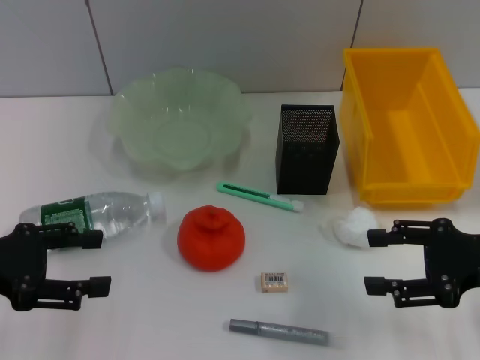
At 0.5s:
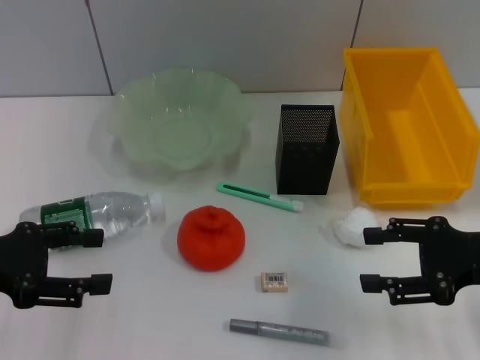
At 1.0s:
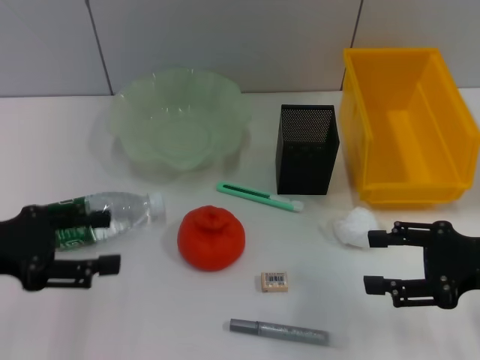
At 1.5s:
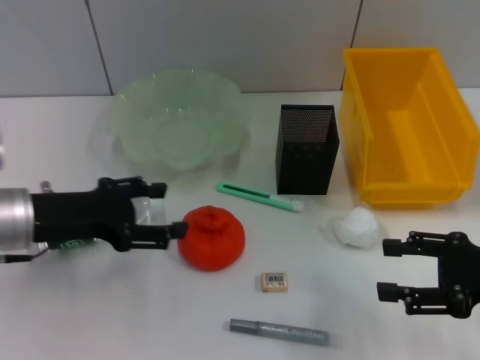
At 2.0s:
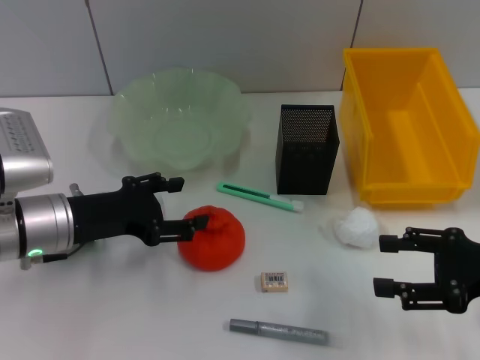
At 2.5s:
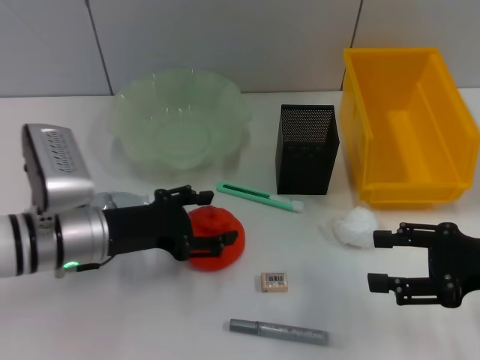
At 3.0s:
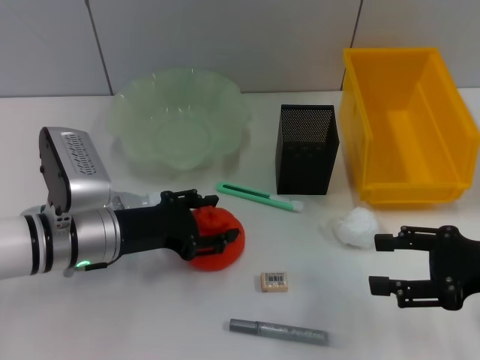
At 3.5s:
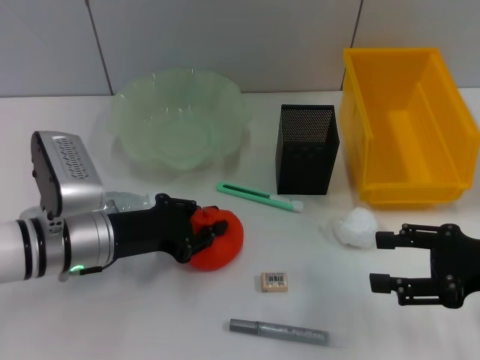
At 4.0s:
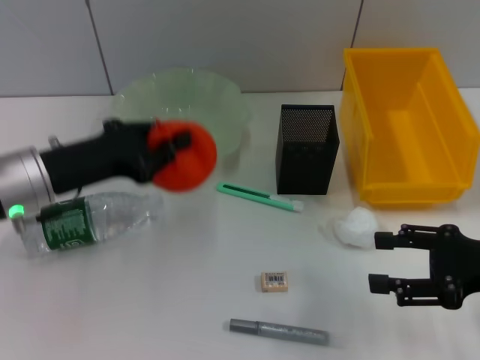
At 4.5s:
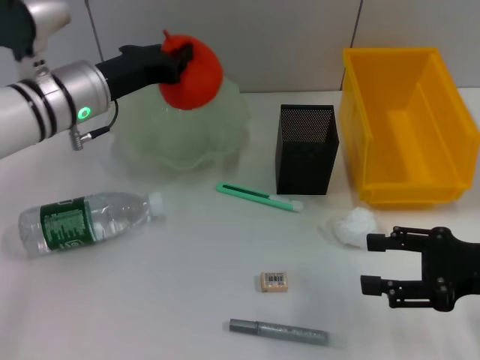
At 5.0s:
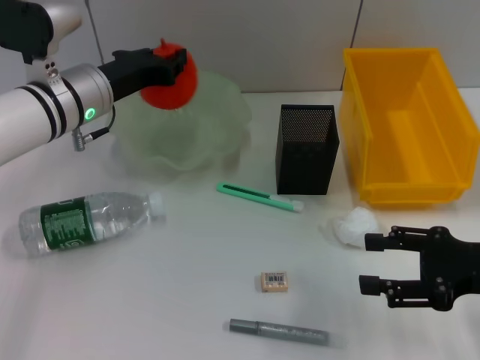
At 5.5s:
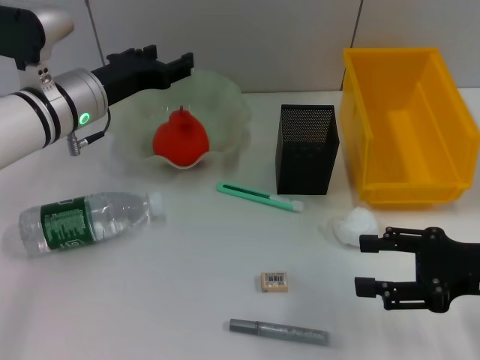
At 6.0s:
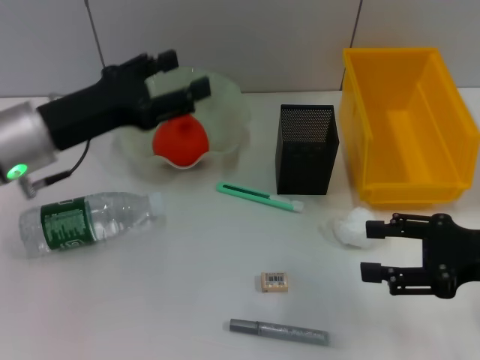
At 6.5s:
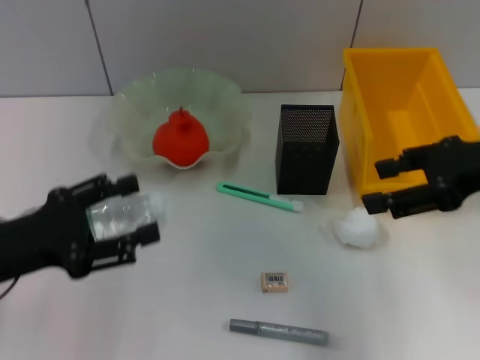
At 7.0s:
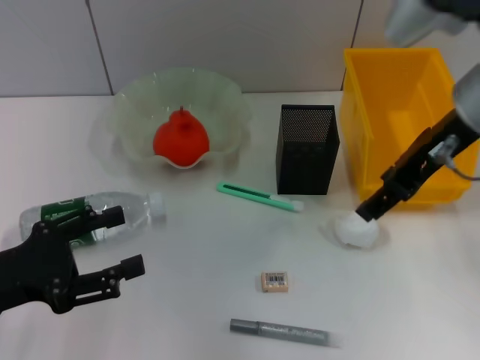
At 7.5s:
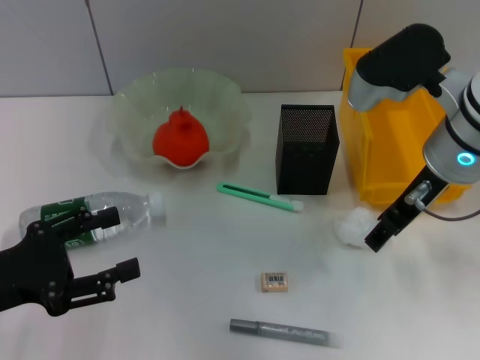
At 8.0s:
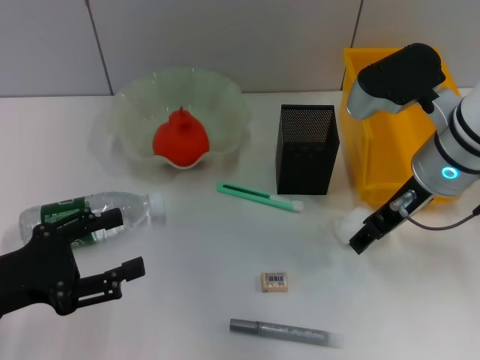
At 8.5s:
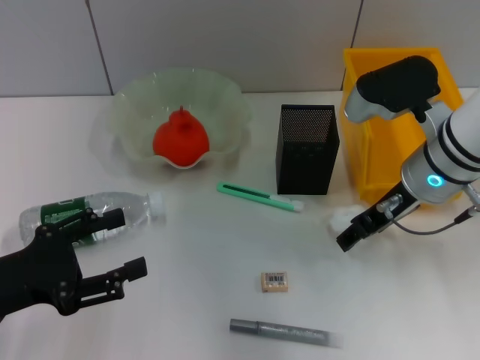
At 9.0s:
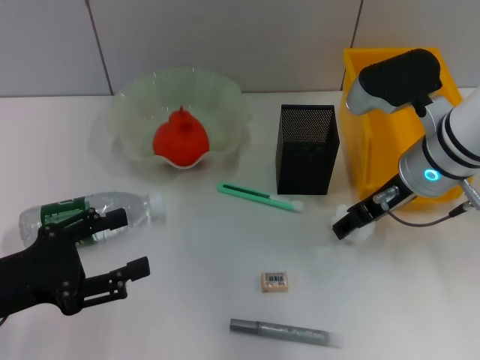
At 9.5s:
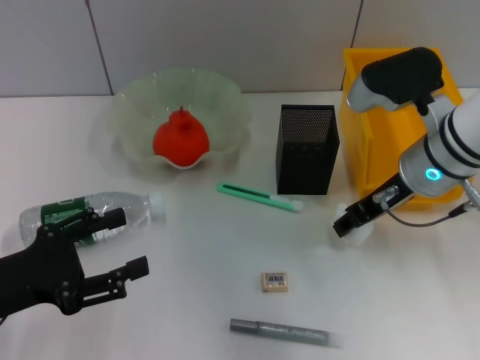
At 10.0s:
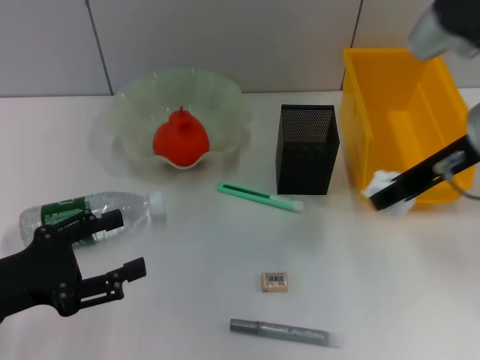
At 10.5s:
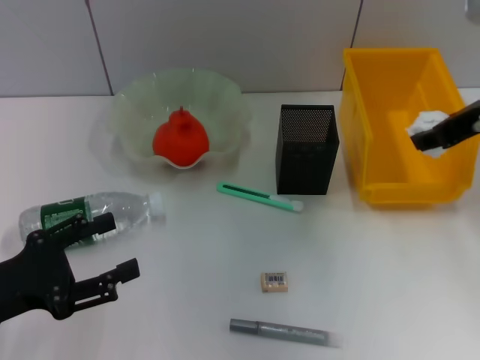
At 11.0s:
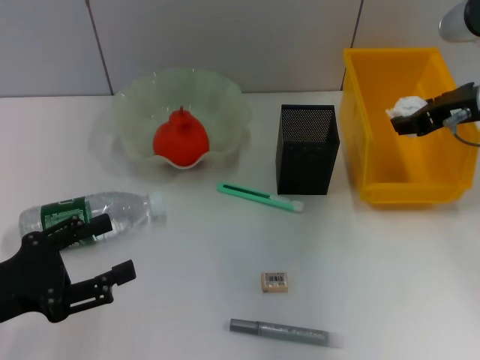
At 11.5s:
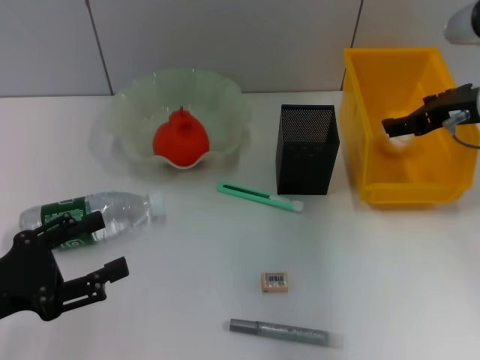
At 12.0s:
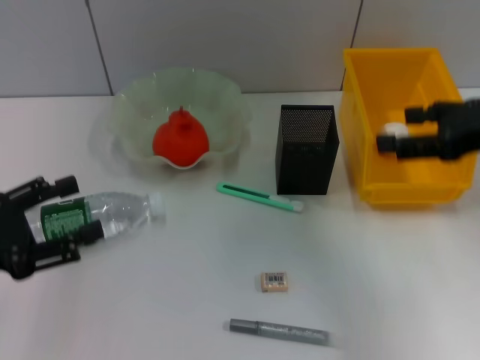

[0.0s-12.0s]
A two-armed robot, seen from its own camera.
Step, 0.0s to 3.5s: Grab the orange with the left hand.
Step, 4.0s to 5.5s: Place the orange into the fruit bowl with the left hand.
Step, 6.0s to 9.5s: Grab the paper ball with the right hand.
Step, 10.0s to 11.0s: Place the paper ball into the trash can with the right hand.
0.0s to 2.0s: The left gripper moves to the right and forward, about 10 cm.
2.0s to 4.0s: The left gripper closes its fingers.
4.0s to 6.0s: The left gripper travels forward and back again, some 10 cm each way, and opens its fingers.
6.0s to 8.0s: The left gripper shifts roughly 15 cm backward, to the left and downward. Meanwhile the right gripper is displaced to the left, forward and upward by approximately 15 cm.
8.0s to 10.0s: The right gripper is displaced upward by roughly 5 cm.
10.0s to 12.0s: The right gripper goes about 10 cm to the right, and opens.

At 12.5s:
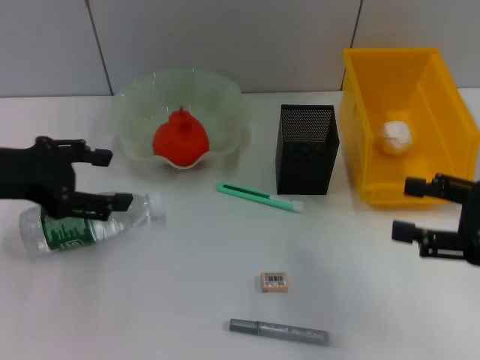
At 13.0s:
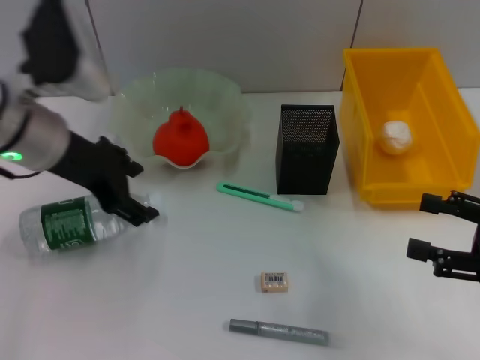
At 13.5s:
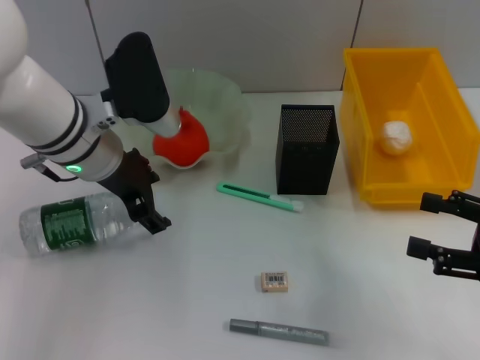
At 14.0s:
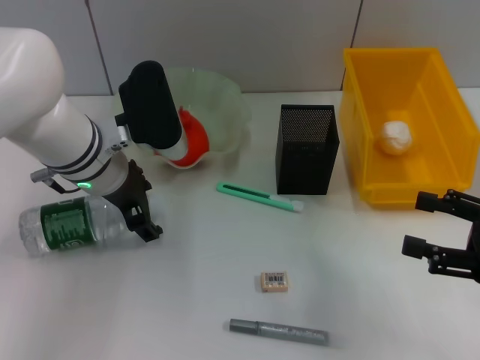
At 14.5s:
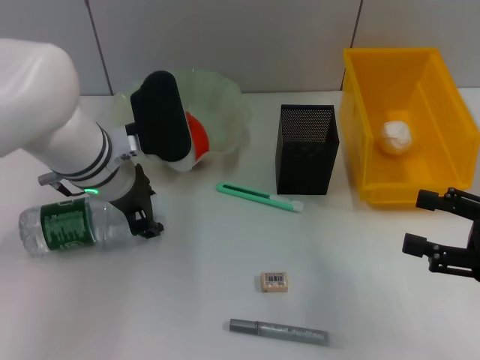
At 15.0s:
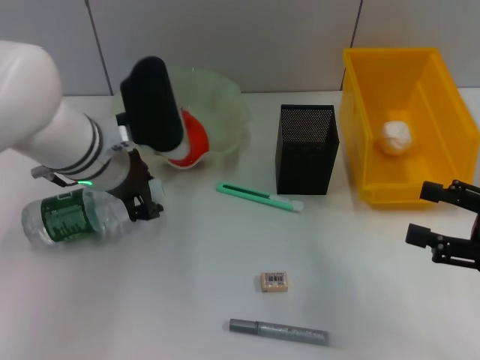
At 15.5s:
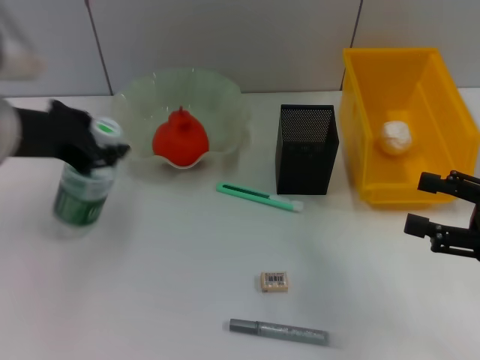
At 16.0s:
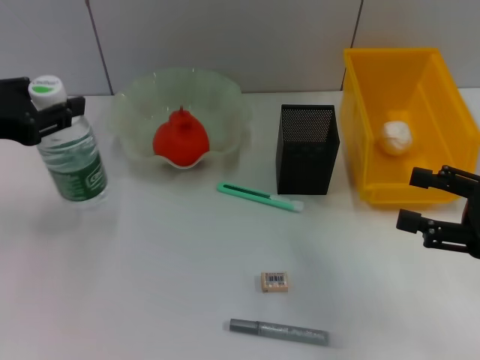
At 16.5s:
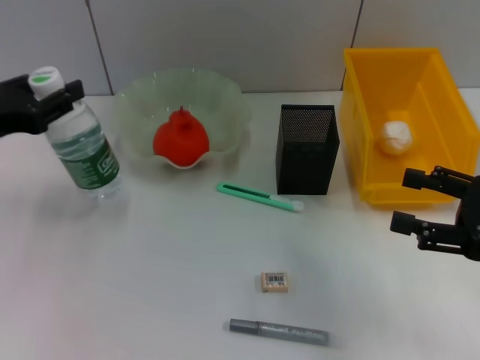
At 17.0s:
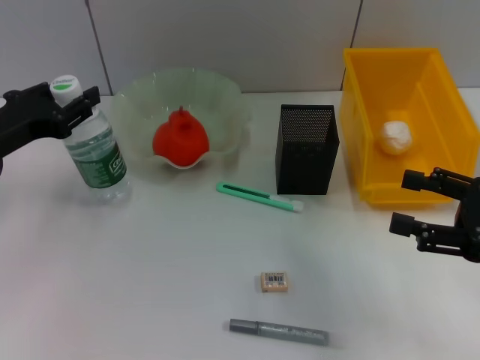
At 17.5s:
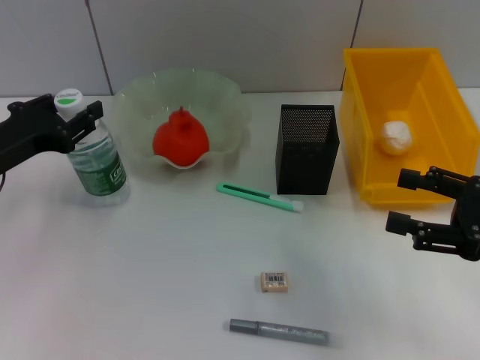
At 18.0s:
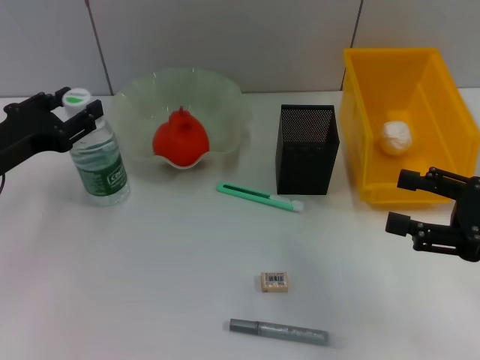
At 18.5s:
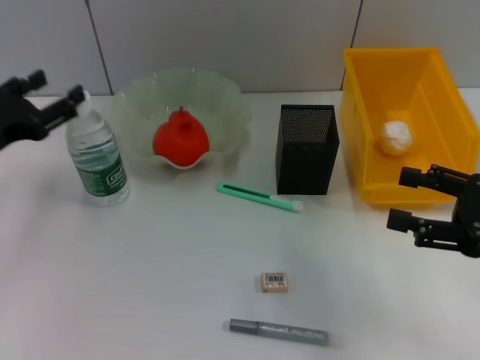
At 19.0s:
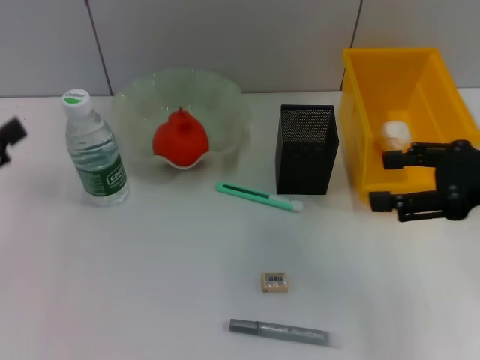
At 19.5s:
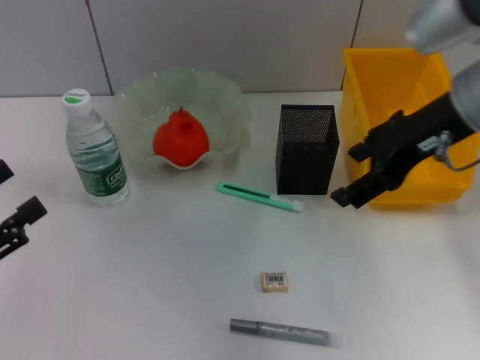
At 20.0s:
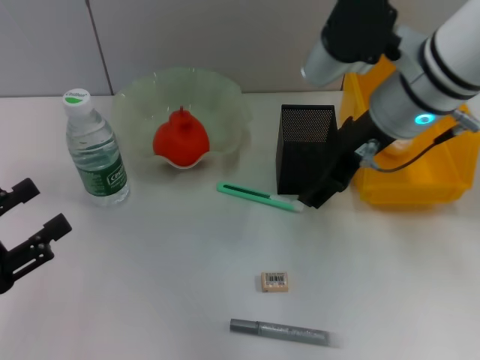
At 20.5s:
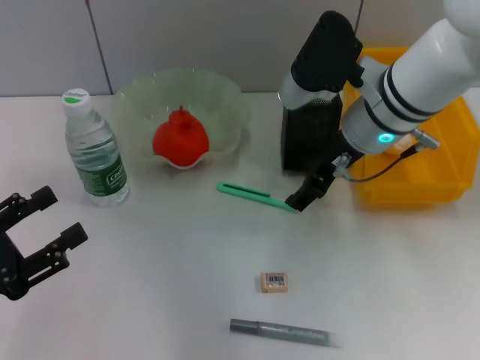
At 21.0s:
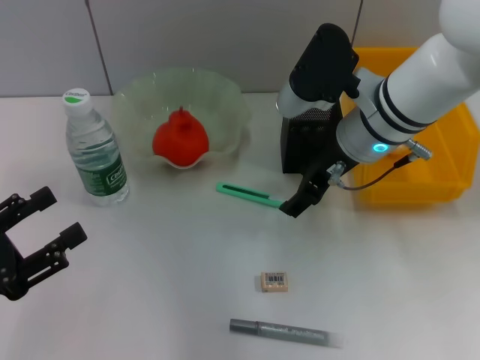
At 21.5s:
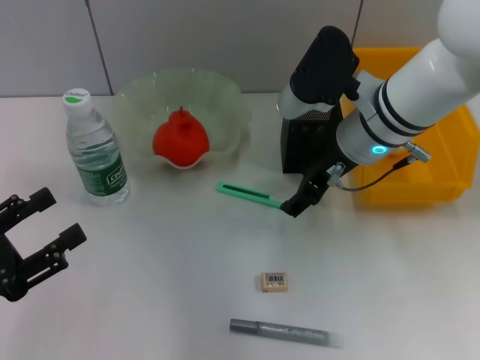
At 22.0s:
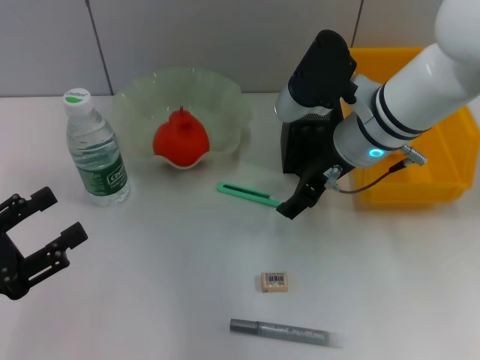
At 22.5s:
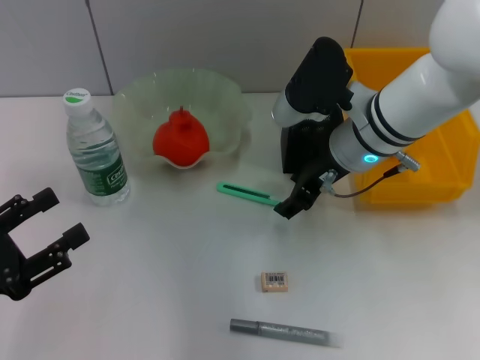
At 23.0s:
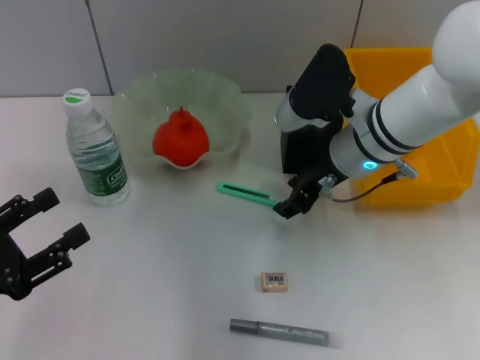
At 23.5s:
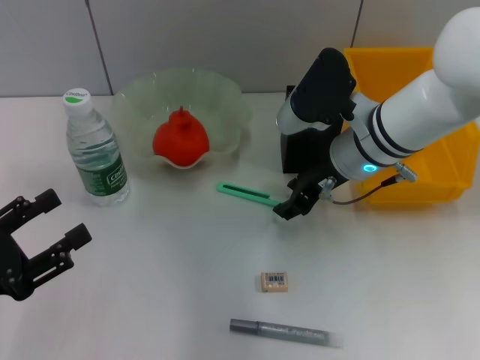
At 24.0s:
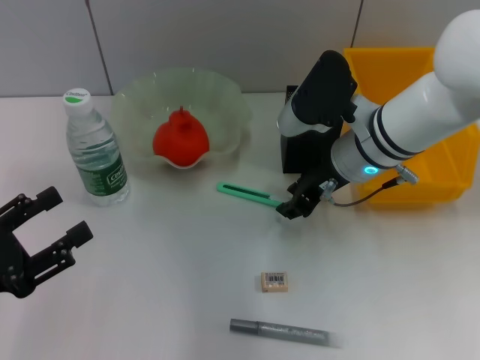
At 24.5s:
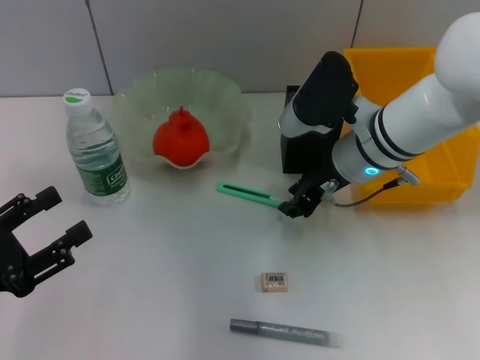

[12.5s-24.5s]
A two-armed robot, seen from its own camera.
Step, 12.5s to 14.5s: Grab the water bottle with the left hand.
Step, 15.0s to 18.5s: Place the water bottle on the table with the left hand.
12.5s to 14.5s: The left gripper shifts some 15 cm to the right, forward and downward.
14.5s to 16.5s: The left gripper goes some 20 cm to the left and backward, and closes up.
16.5s to 18.5s: The left gripper opens up.
18.5s to 20.5s: The left gripper goes approximately 15 cm backward. Meanwhile the right gripper travels to the left and forward by roughly 25 cm.
20.5s to 22.5s: The grippers stay close to where they were, moving slightly.
22.5s to 24.5s: The right gripper closes up.

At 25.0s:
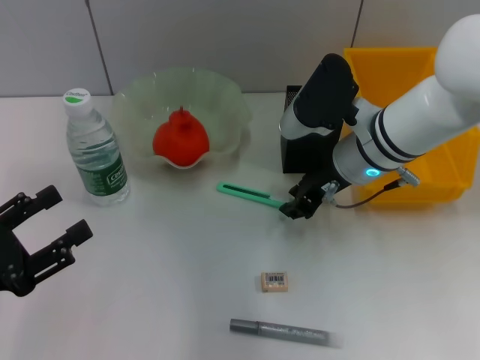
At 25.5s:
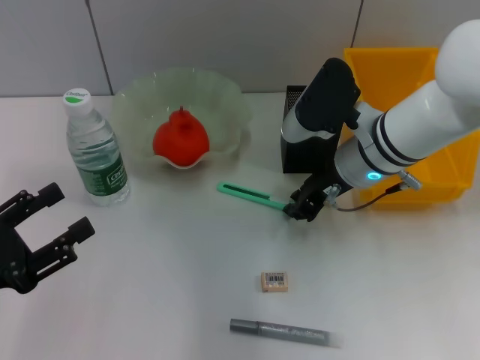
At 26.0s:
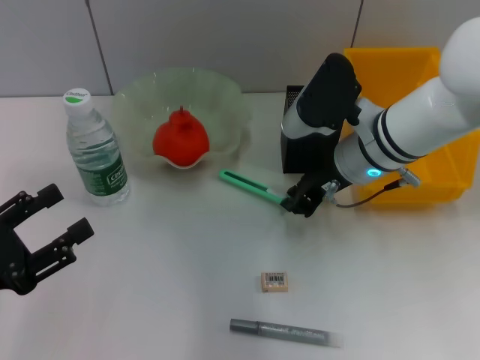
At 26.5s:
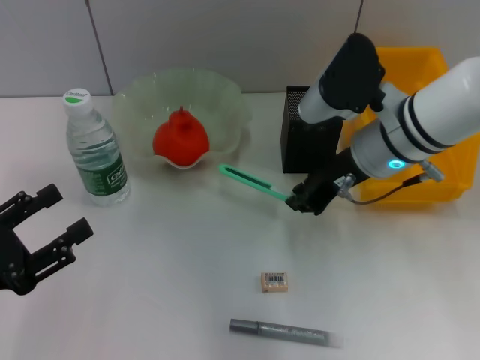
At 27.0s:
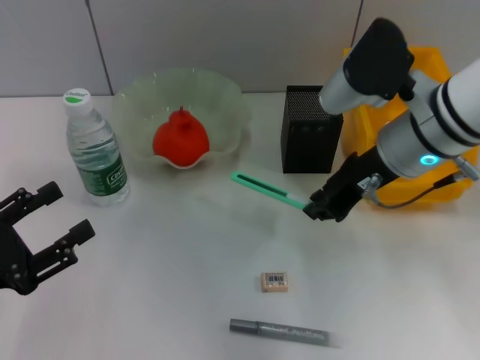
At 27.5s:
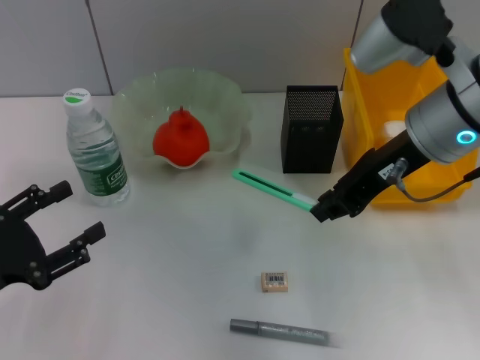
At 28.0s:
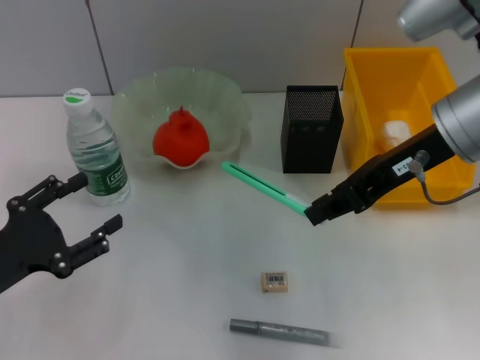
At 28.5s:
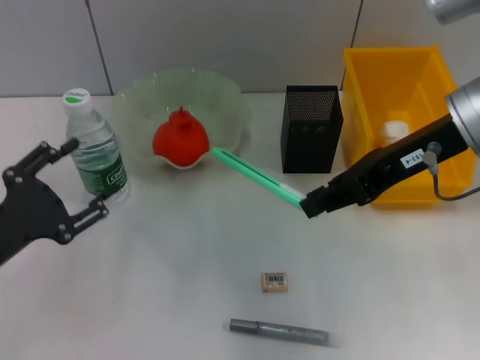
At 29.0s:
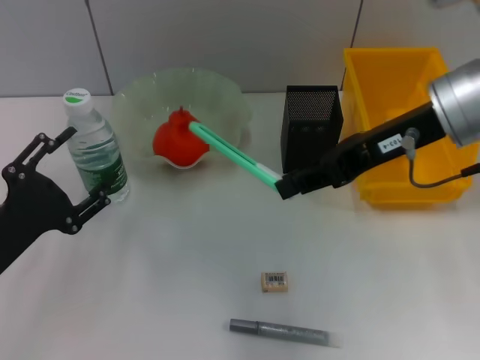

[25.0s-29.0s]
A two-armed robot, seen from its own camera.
25.0s to 27.0s: The right gripper travels upward by about 5 cm.
27.0s to 29.0s: The right gripper is displaced upward by roughly 5 cm; the left gripper ends up some 5 cm from where it was.
